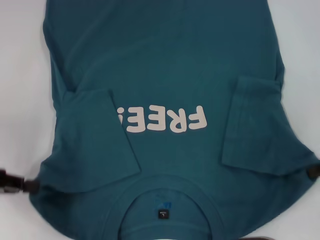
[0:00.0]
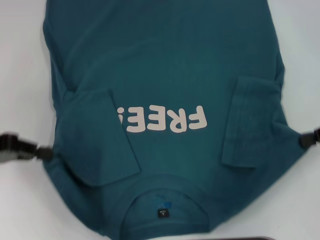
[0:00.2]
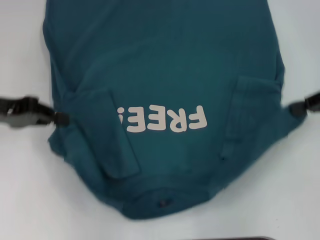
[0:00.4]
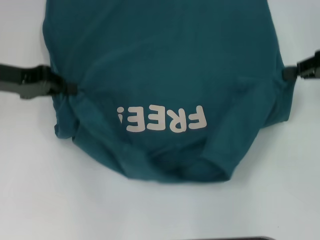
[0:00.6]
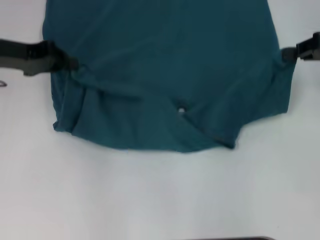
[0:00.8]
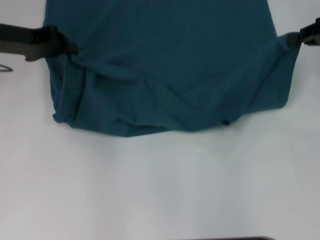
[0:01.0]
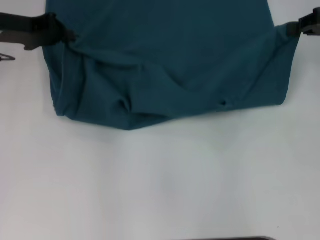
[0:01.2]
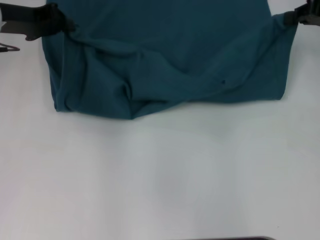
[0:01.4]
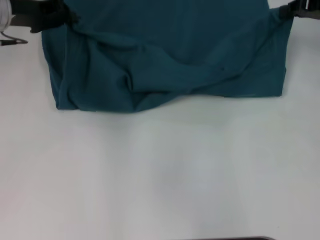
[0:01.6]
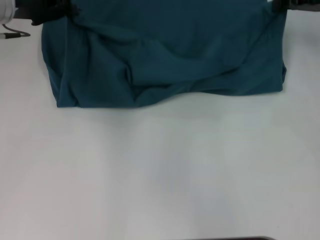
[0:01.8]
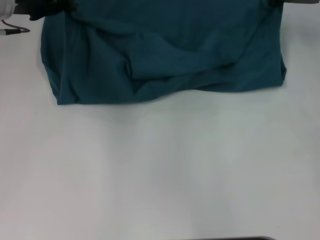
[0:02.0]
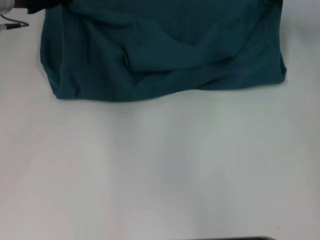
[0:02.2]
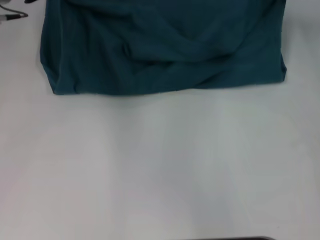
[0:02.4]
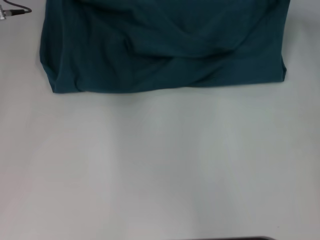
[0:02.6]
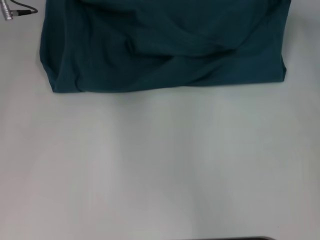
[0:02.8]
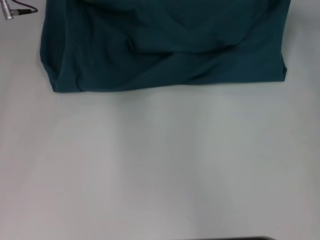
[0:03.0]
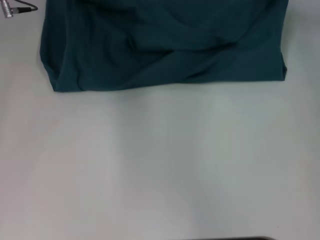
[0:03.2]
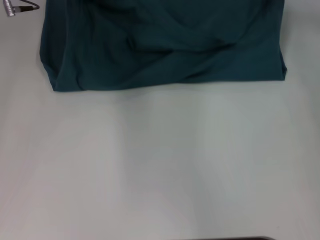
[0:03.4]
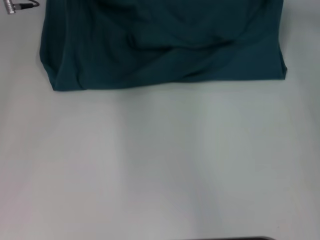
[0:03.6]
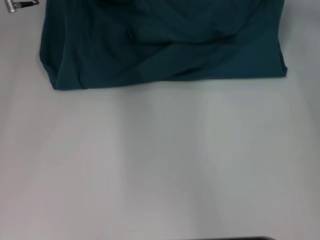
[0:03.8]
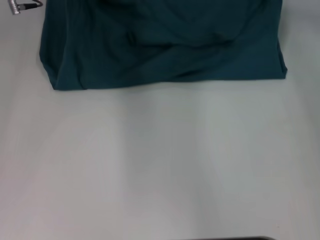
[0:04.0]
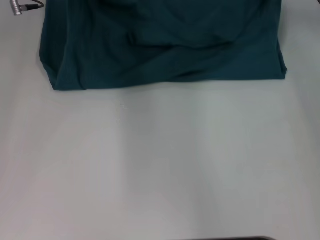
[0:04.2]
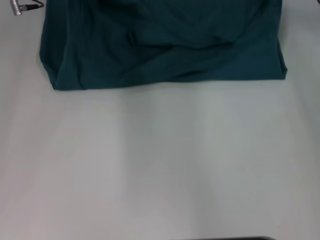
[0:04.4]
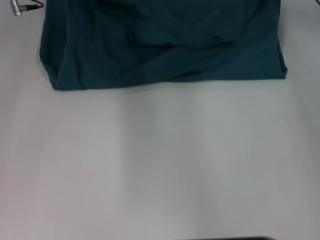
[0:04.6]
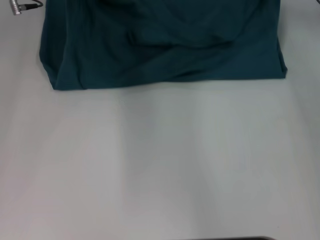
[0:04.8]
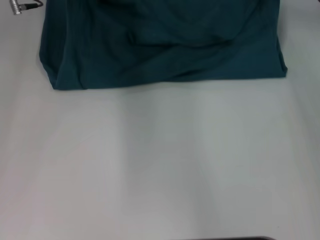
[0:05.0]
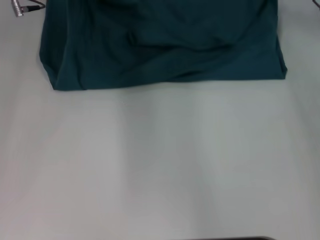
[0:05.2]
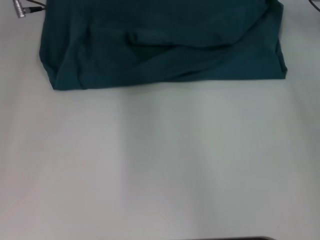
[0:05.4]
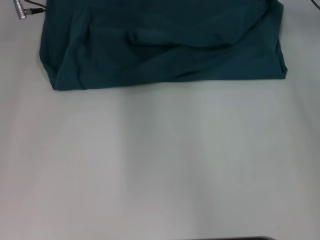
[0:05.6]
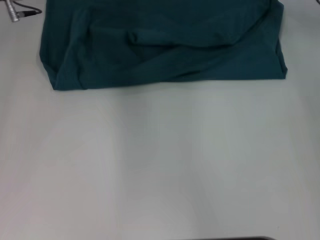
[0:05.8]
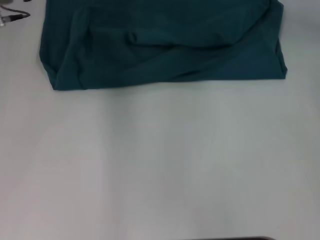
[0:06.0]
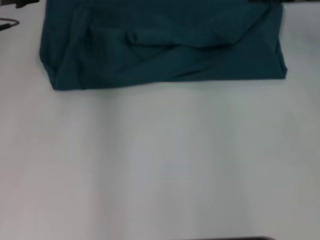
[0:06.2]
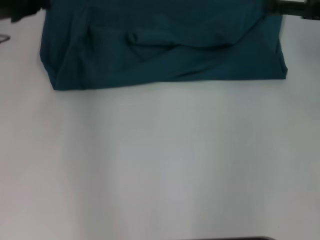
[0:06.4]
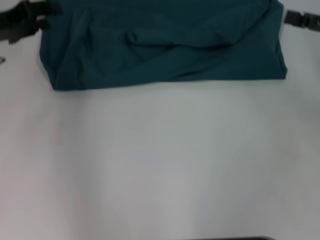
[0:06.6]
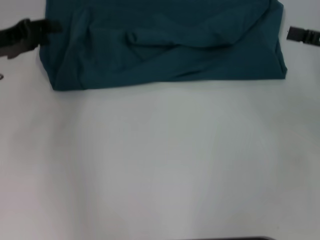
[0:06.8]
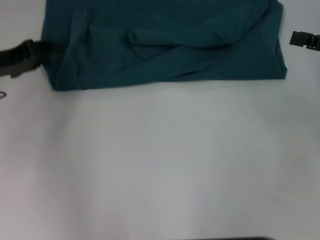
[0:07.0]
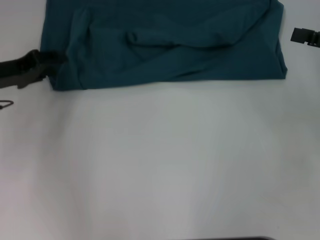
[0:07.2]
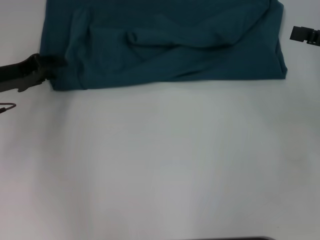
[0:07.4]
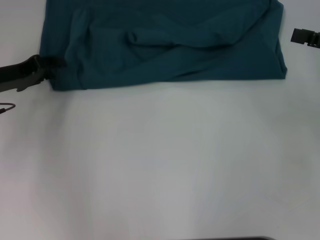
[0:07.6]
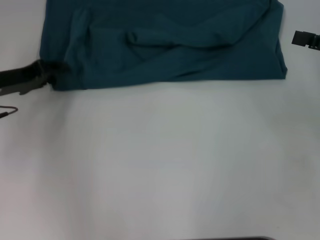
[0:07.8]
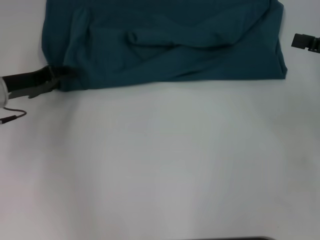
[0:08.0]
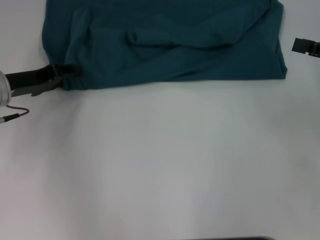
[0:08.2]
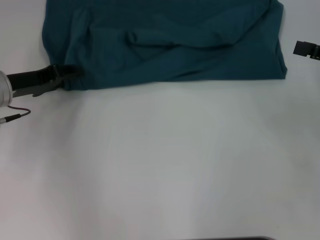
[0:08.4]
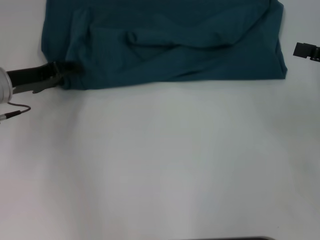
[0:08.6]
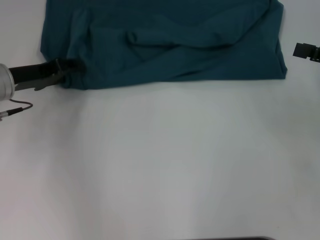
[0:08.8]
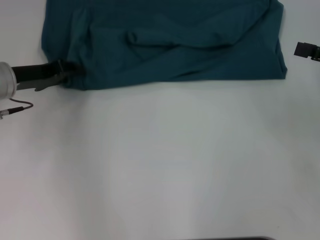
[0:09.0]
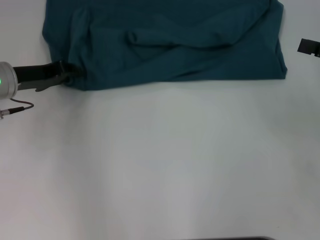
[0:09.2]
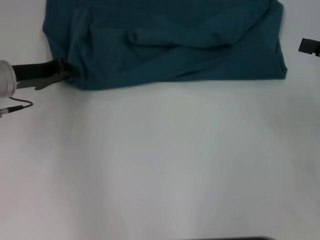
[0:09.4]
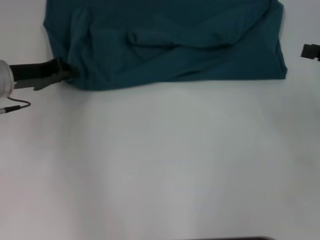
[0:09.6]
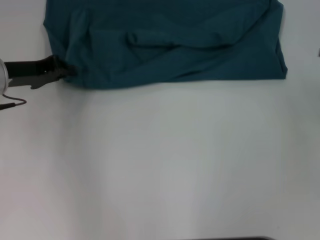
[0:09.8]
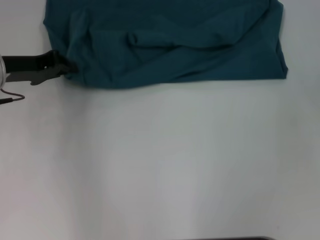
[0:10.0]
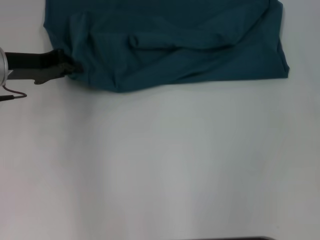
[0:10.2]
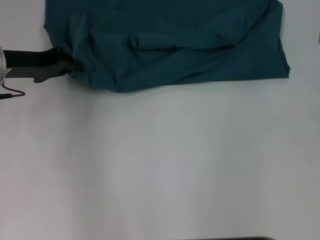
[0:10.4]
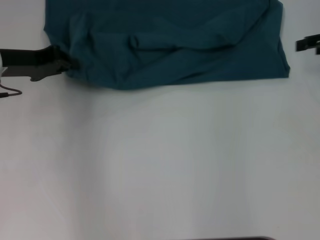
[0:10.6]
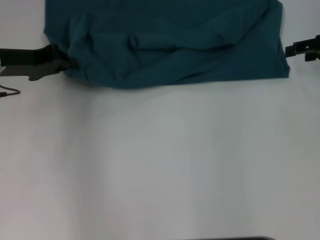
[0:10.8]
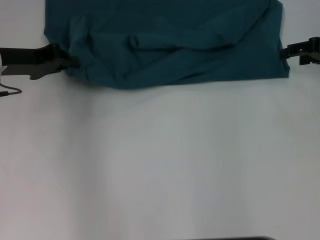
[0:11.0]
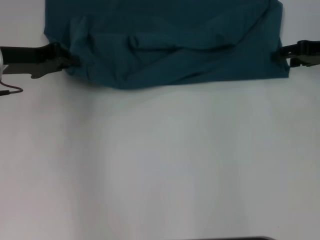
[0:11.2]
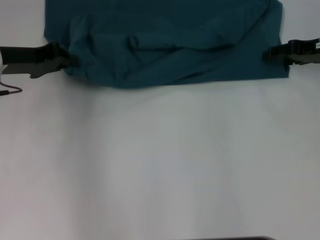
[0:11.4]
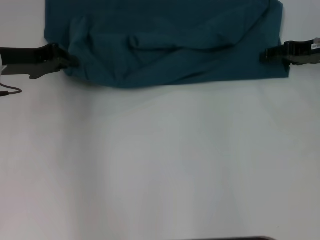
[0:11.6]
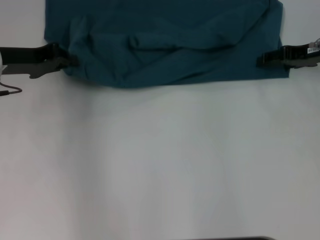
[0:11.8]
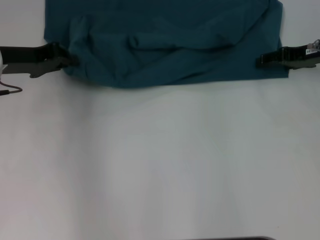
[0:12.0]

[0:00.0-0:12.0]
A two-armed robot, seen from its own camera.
Step, 0.0 to 6.0 s: Fold the clothes to the left.
Step, 0.0 to 6.0 s: Fold the clothes to the right.
0.0 to 1.6 s: The left gripper is displaced forward and to the right by some 20 cm. Meanwhile the right gripper is displaced forward by roughly 15 cm.
1.6 to 3.0 s: The left gripper moves some 5 cm, while the right gripper ends up some 5 cm from where it was.
3.0 to 4.4 s: There are only small adjustments of the grippers.
4.4 to 6.0 s: The left gripper opens.
6.0 to 7.6 s: The right gripper moves backward and to the right, some 15 cm. The left gripper moves backward, downward and to the left, some 15 cm.
7.6 to 9.0 s: The grippers move only a little.
9.0 to 10.4 s: The left gripper closes its fingers, while the right gripper shifts roughly 10 cm forward.
10.4 to 12.0 s: The right gripper moves to the left and downward, some 10 cm.

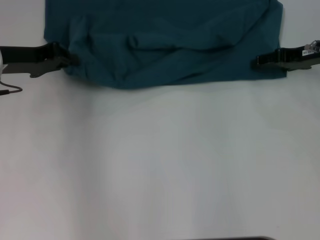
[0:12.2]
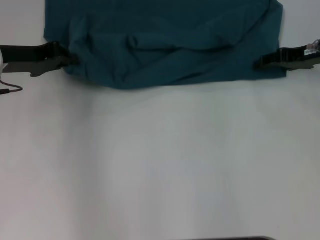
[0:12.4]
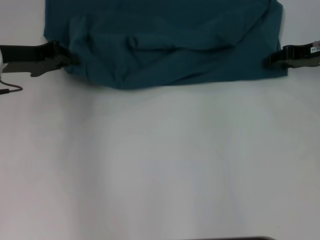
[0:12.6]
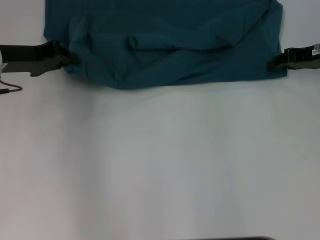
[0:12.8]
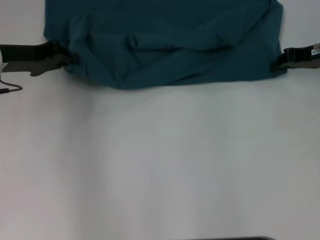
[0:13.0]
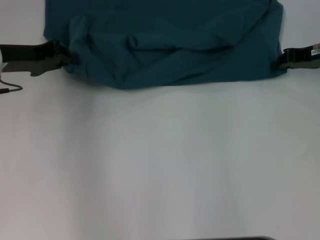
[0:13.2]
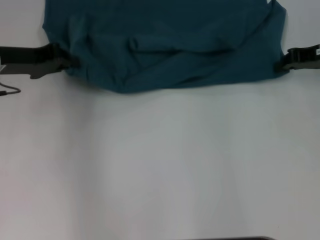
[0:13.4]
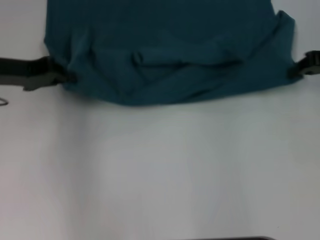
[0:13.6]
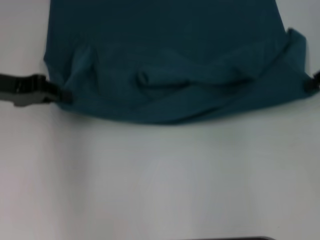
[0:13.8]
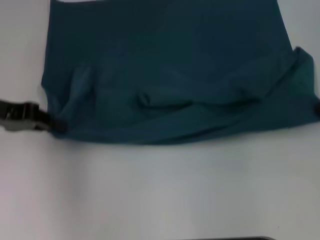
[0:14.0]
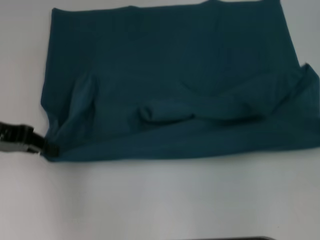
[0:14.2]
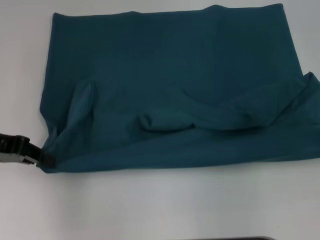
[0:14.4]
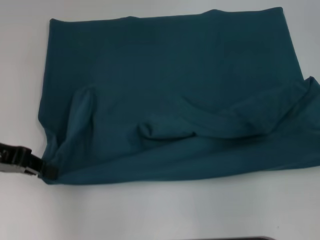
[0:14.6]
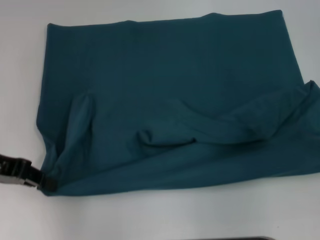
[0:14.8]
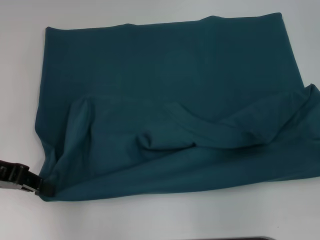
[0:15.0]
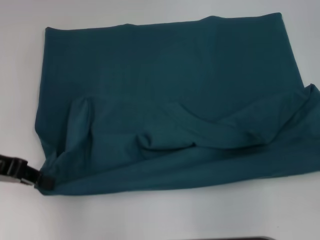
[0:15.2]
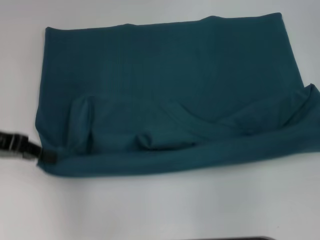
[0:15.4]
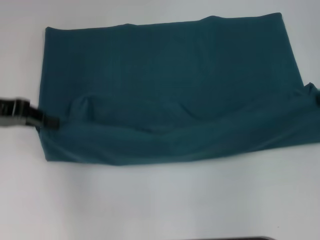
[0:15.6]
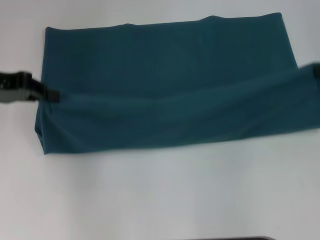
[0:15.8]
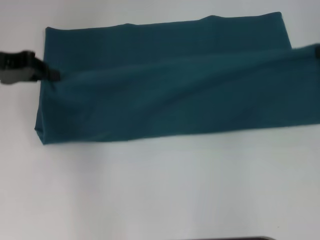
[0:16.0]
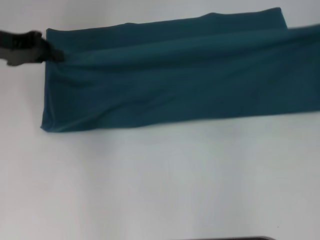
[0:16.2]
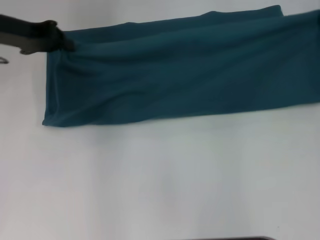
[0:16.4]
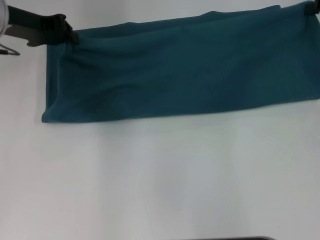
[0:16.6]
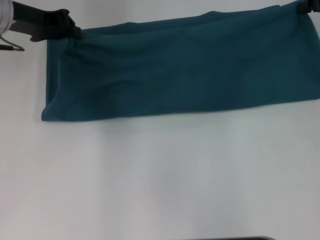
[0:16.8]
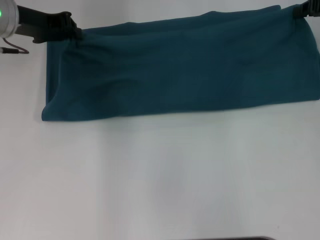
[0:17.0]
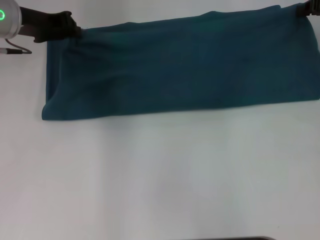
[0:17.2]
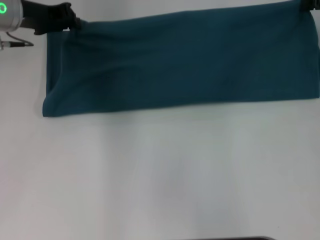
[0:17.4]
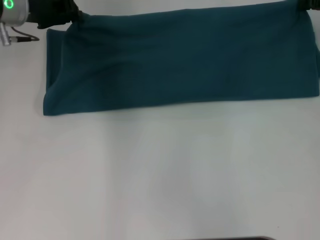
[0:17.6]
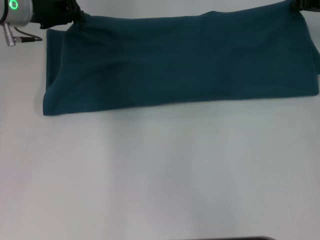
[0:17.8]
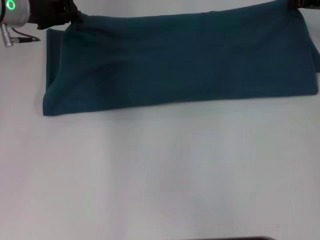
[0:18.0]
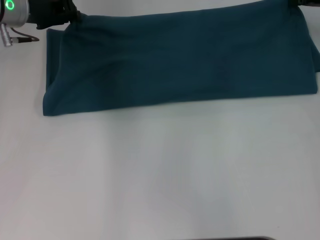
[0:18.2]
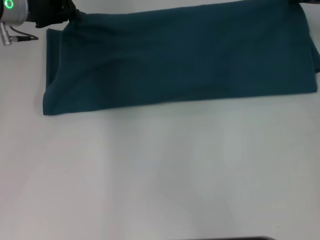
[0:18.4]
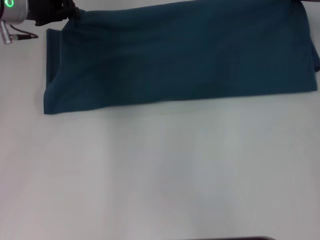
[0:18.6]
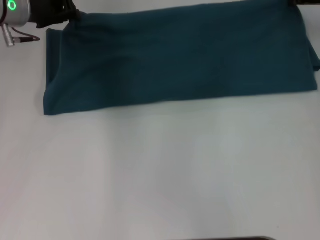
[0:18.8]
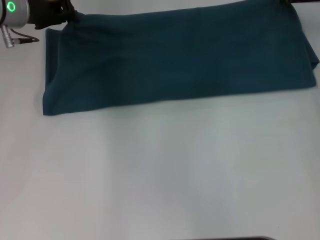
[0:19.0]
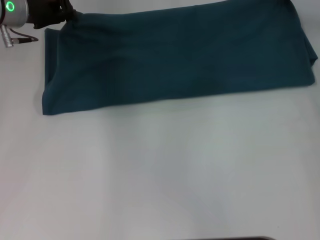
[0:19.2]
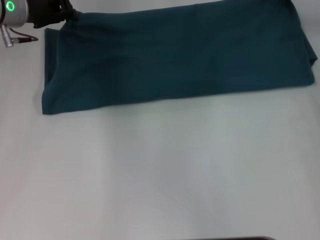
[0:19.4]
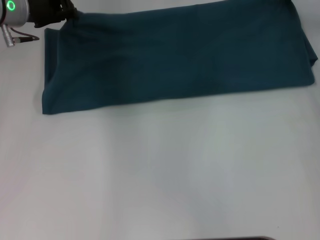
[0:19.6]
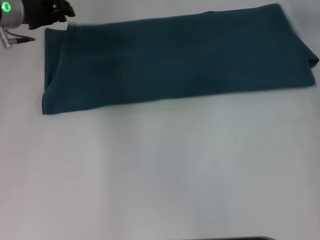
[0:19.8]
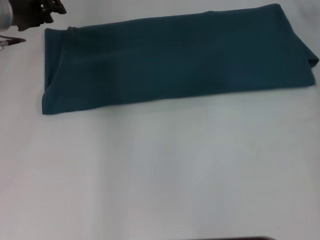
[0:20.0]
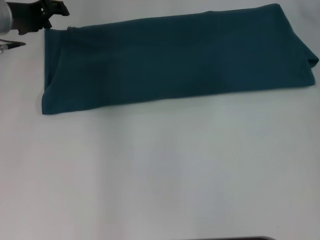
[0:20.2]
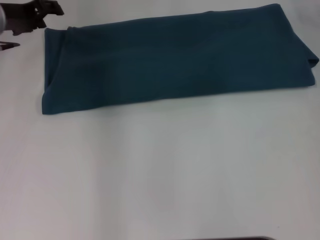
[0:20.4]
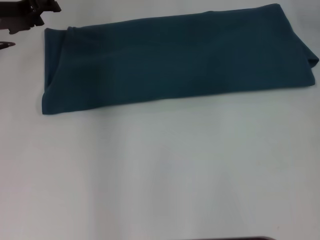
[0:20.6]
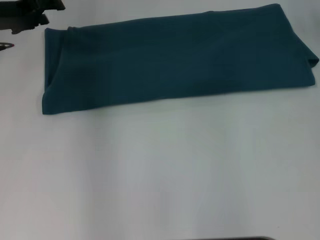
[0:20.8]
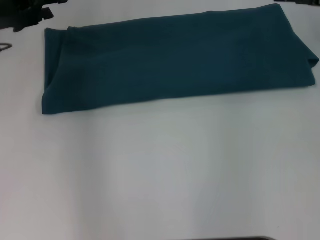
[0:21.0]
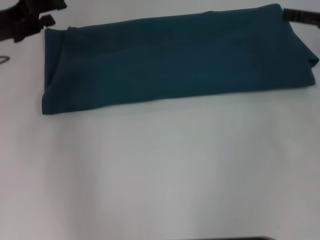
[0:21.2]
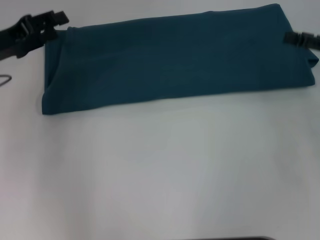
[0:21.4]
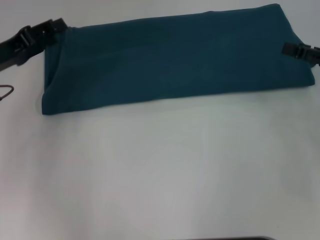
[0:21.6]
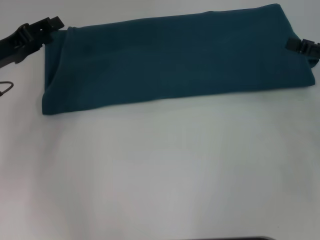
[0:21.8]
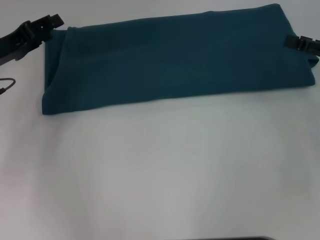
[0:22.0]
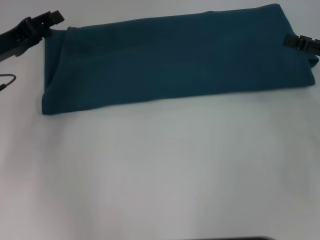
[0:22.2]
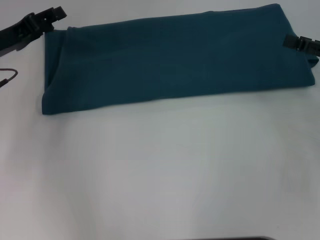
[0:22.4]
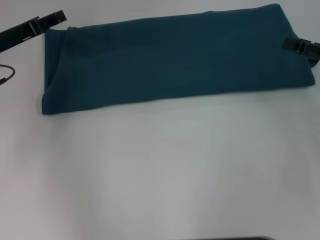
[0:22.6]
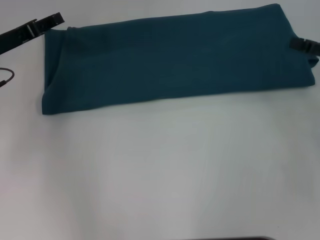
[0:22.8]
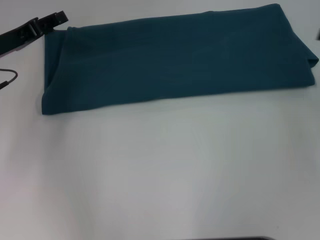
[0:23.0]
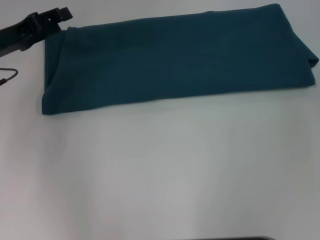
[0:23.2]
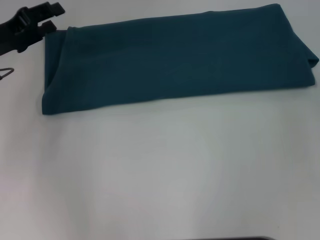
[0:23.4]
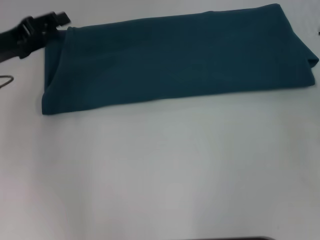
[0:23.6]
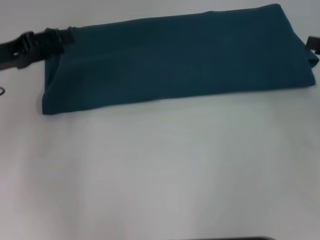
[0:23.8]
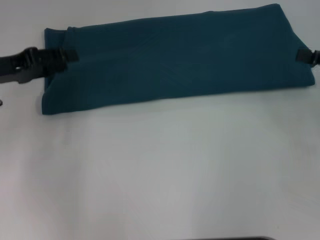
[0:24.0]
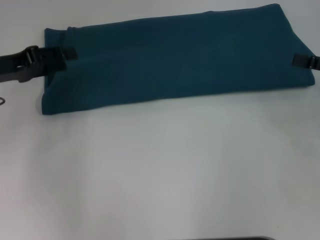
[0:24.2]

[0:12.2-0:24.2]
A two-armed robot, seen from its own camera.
Step, 12.2 to 14.8 s: Pull the clothes with your left hand.
Step, 12.2 to 14.8 s: Pull the clothes with your right hand.
Step, 15.0 to 19.8 s: Fold the clothes to the left.
Step, 15.0 to 19.8 s: Fold the clothes to the right.
12.2 to 13.8 s: The right gripper is displaced upward by approximately 5 cm, and closes its fingers.
13.8 to 15.2 s: Both grippers move backward, about 5 cm.
15.2 to 16.6 s: The left gripper goes approximately 15 cm forward and to the right. The right gripper moves forward, roughly 10 cm.
16.6 to 18.2 s: The right gripper ends up approximately 5 cm from where it was.
18.2 to 19.8 s: The grippers stay close to where they were, moving slightly.
19.8 to 21.2 s: The right gripper moves backward and to the right, some 15 cm, and opens up, while the left gripper goes roughly 10 cm backward, and opens.
21.2 to 22.6 s: The right gripper shifts by about 5 cm.
